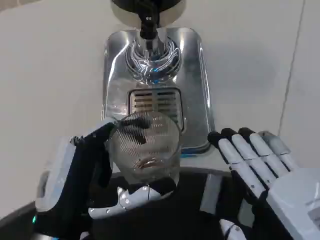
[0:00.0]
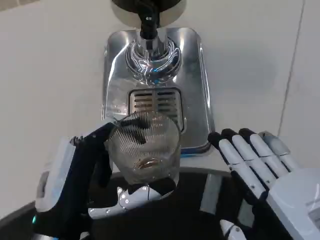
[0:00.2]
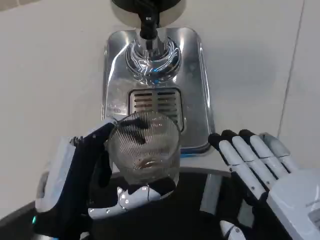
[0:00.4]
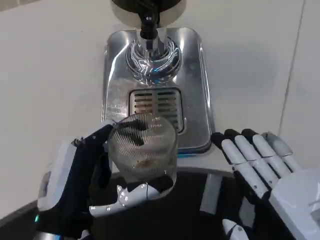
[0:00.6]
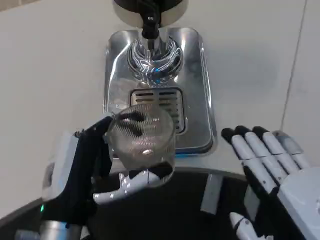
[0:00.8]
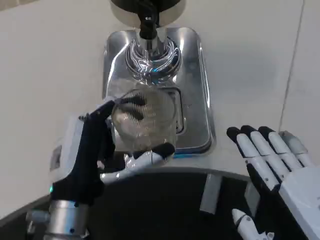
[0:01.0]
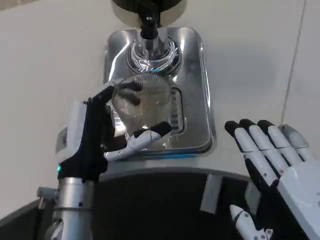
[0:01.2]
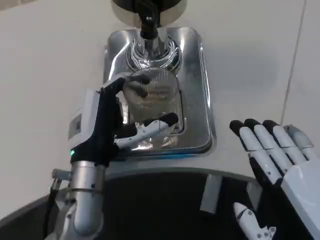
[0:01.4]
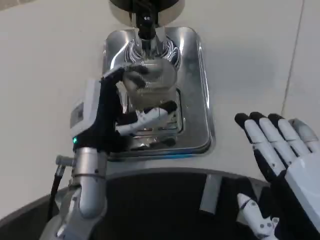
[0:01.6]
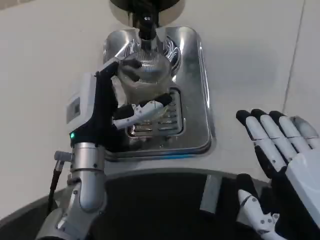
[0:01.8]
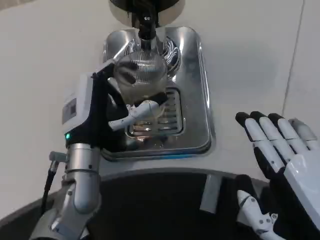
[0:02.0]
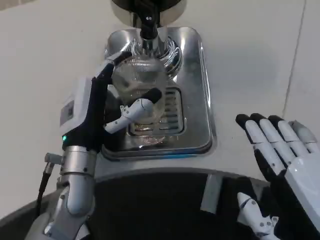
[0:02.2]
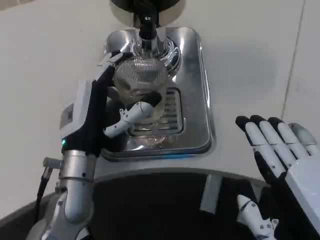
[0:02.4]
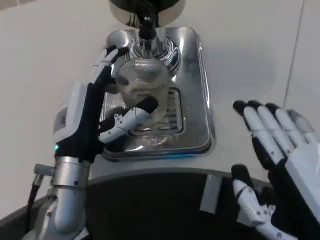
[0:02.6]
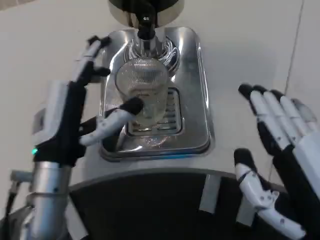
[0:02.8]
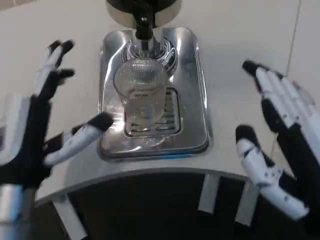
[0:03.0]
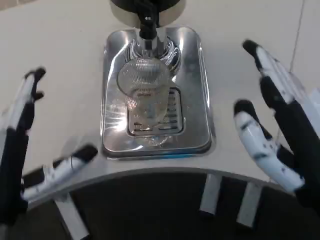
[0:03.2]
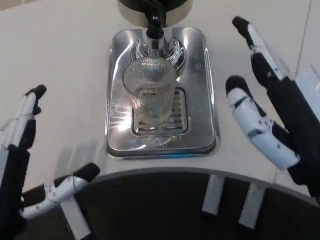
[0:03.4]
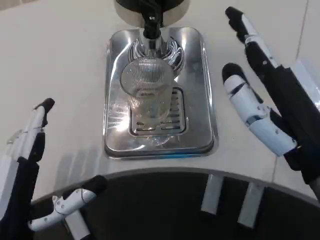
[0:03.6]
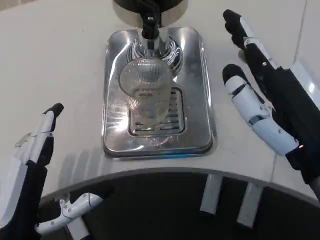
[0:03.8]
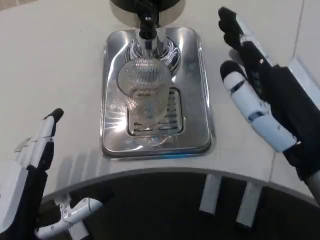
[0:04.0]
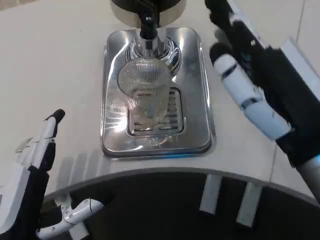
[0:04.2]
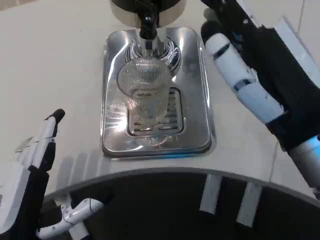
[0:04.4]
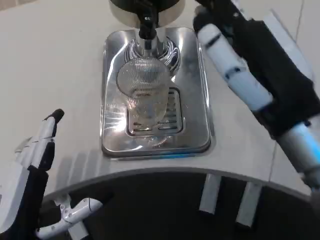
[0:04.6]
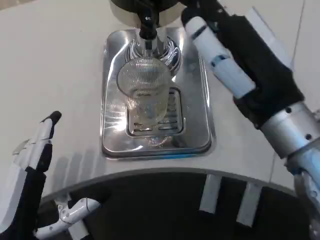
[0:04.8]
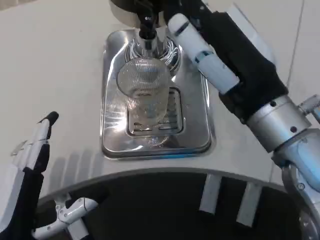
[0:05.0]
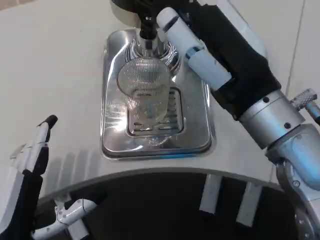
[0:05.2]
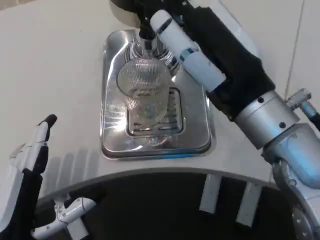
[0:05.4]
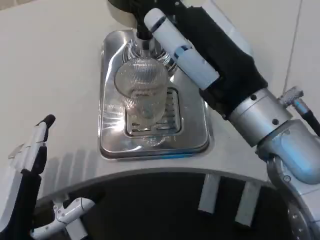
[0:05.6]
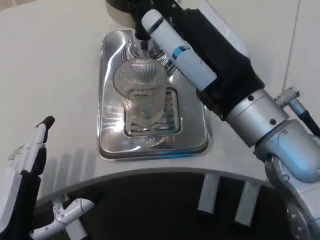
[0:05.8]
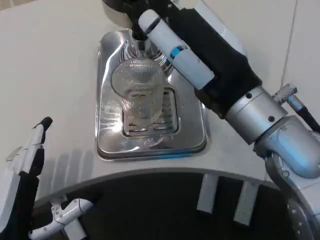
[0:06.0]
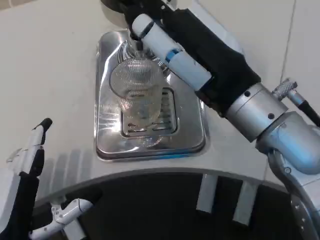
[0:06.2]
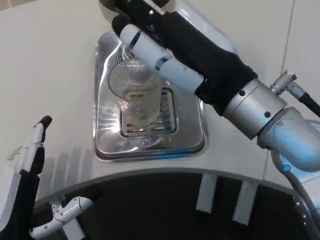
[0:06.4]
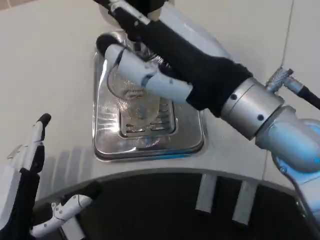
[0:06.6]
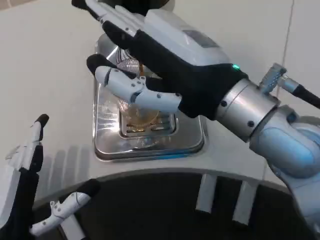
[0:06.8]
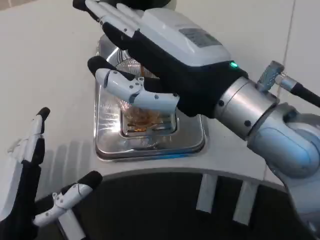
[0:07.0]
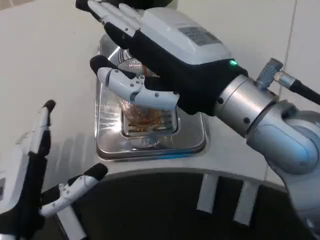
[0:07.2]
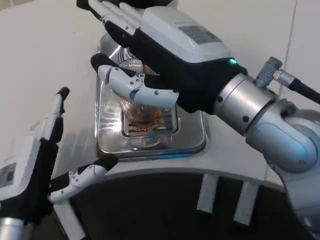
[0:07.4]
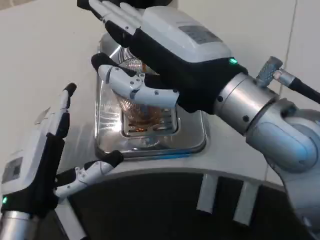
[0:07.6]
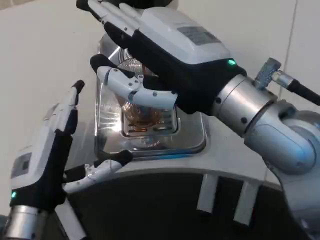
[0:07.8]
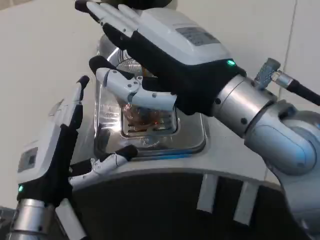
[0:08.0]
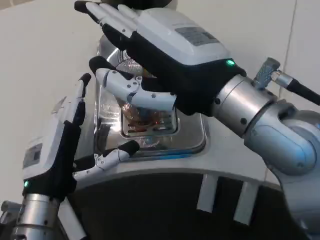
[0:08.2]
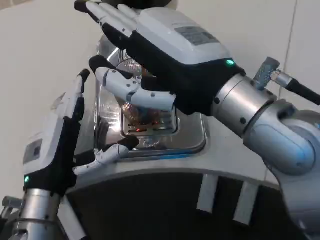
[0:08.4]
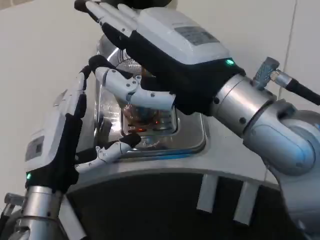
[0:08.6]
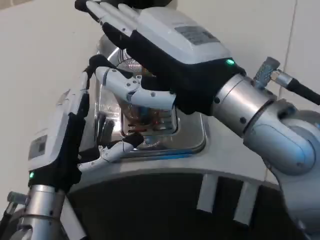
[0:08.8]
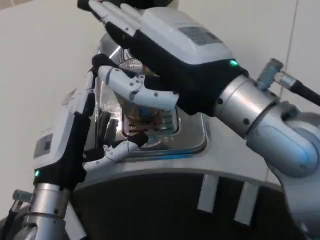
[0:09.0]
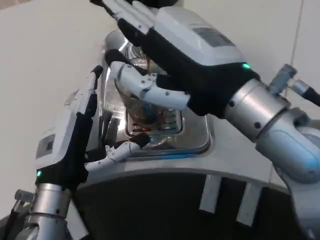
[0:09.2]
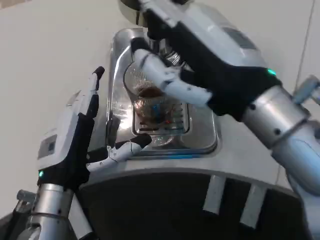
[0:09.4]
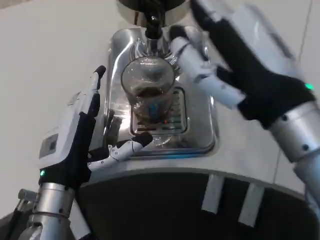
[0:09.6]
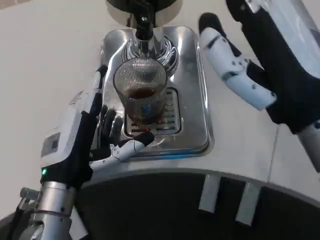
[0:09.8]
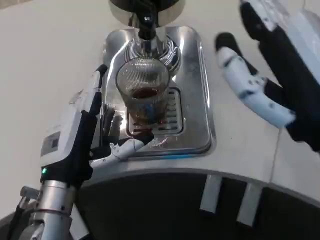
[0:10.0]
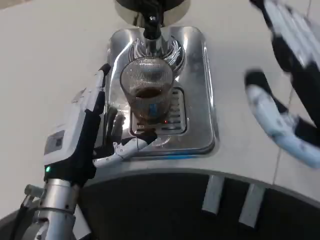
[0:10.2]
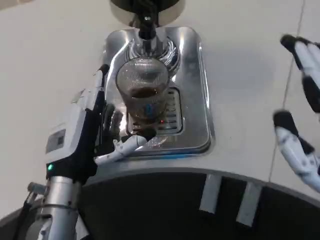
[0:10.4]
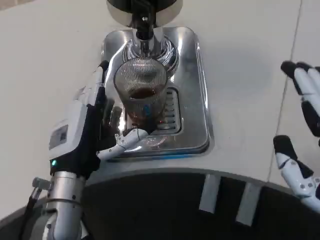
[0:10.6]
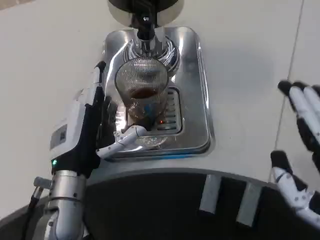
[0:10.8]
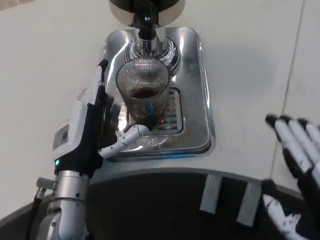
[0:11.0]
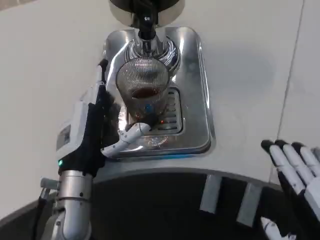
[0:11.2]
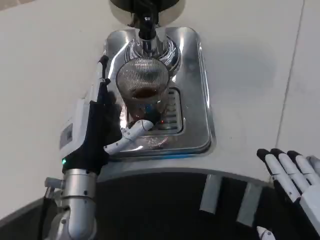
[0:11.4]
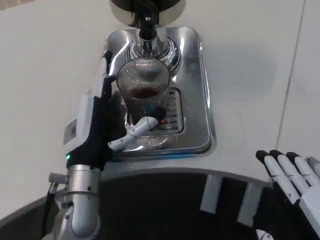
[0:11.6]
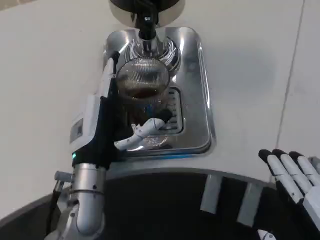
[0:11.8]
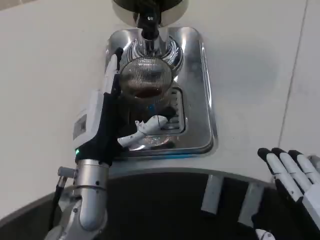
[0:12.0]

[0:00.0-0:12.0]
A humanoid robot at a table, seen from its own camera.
Task of the whole recording: Grasp the cup under the faucet to collect the drink, then remove the cup.
0:00.0 to 0:01.6: The left hand is displaced forward by about 15 cm.
0:01.6 to 0:03.0: The left hand moves backward and to the left, roughly 10 cm.
0:03.0 to 0:04.4: The right hand travels forward by about 5 cm; the left hand heads backward, covering about 5 cm.
0:04.4 to 0:06.0: The right hand shifts about 5 cm forward.
0:06.0 to 0:07.6: The left hand shifts roughly 5 cm forward.
0:07.6 to 0:09.0: The left hand ends up approximately 5 cm from where it was.
0:09.0 to 0:10.4: The right hand is displaced backward, to the right and downward by roughly 15 cm.
0:10.4 to 0:12.0: The right hand heads downward, covering about 5 cm.

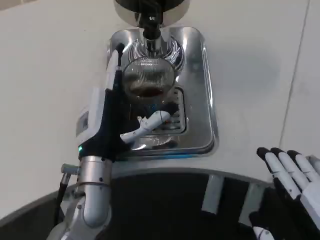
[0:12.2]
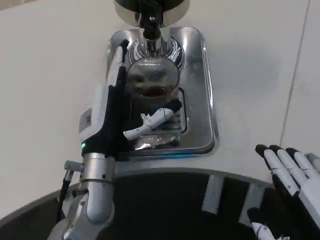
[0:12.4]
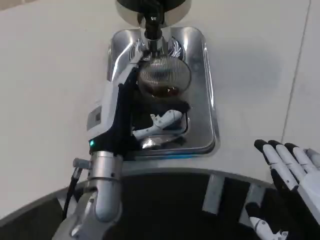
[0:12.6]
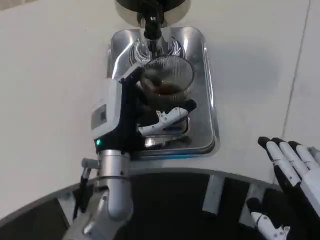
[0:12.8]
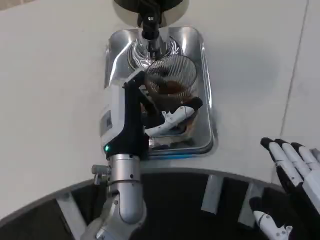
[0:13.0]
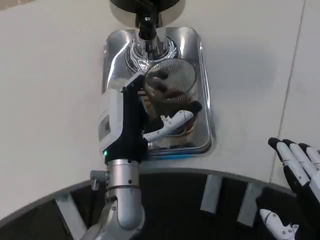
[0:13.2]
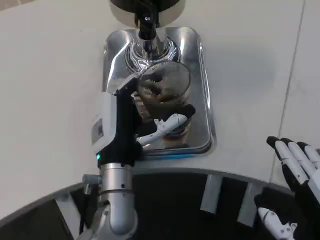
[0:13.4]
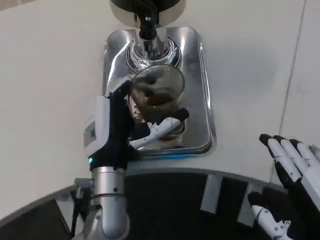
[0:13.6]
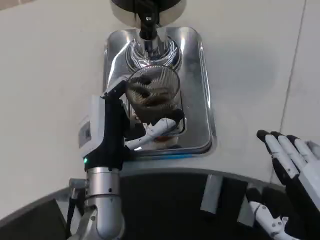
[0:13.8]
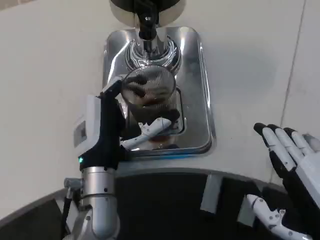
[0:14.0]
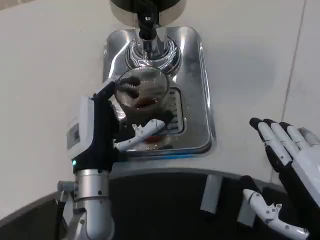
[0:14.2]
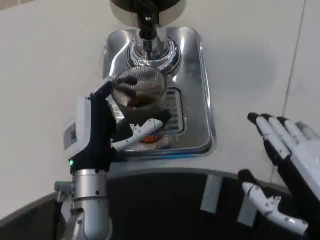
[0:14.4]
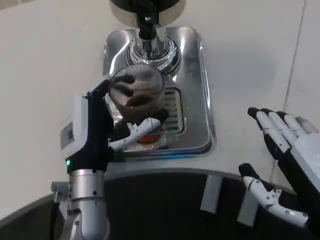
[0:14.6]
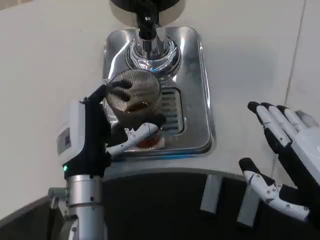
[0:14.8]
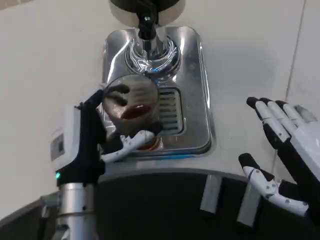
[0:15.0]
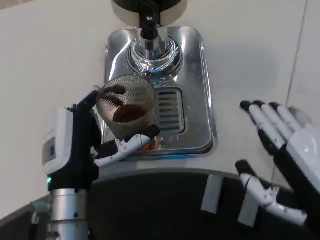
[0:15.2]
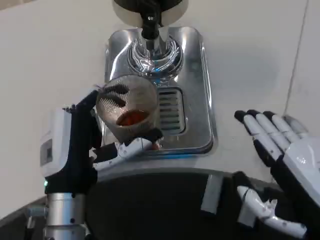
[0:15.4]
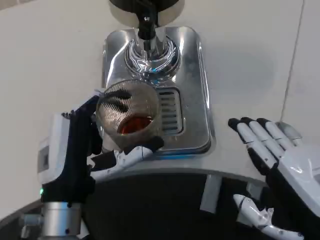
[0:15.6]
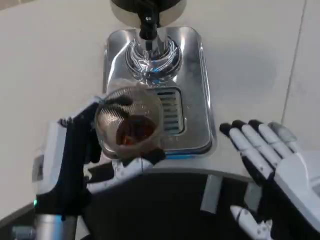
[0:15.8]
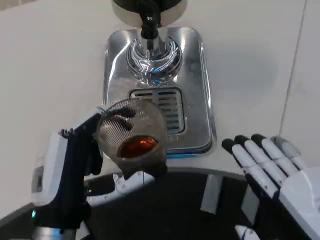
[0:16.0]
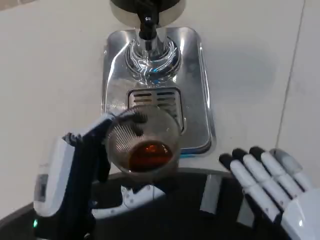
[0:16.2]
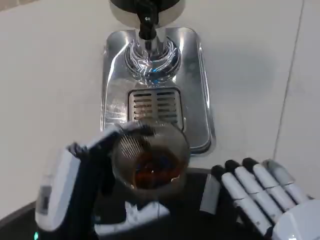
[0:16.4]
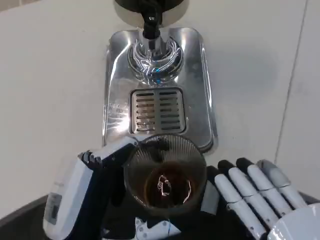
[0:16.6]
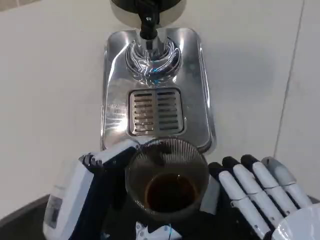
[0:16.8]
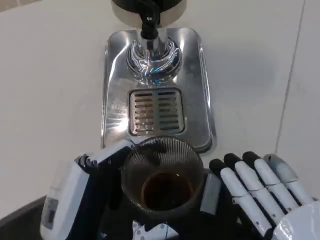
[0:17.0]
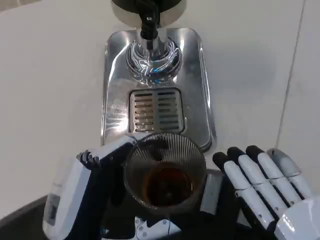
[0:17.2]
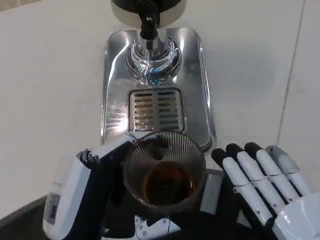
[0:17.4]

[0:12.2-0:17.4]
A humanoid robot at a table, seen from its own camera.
Task of the whole recording: Grasp the cup under the faucet to collect the drink, then remove the cup.
0:14.0 to 0:15.6: The left hand goes approximately 5 cm backward.
0:15.6 to 0:17.4: Both hands travel together backward, roughly 5 cm.

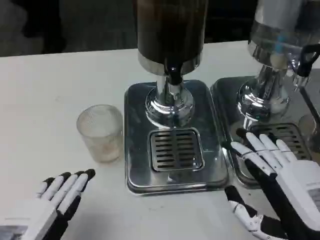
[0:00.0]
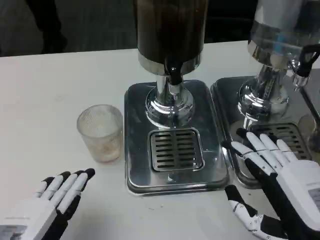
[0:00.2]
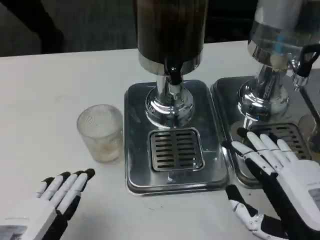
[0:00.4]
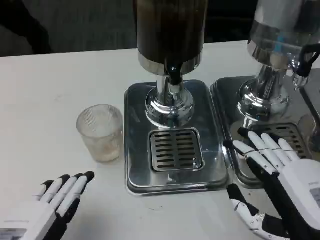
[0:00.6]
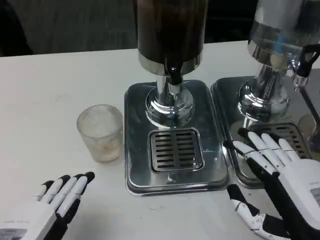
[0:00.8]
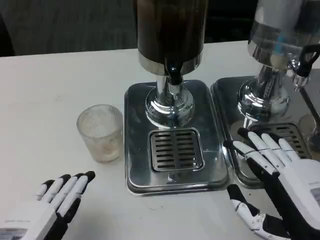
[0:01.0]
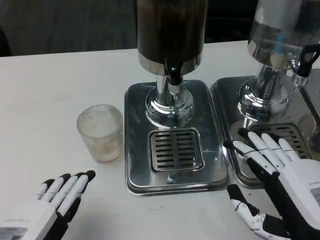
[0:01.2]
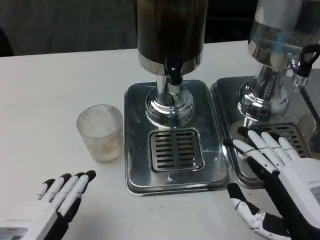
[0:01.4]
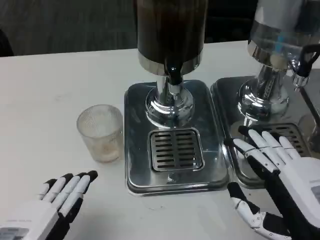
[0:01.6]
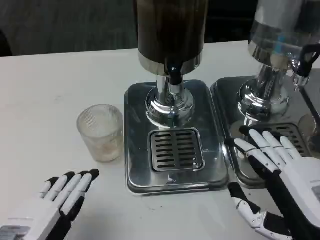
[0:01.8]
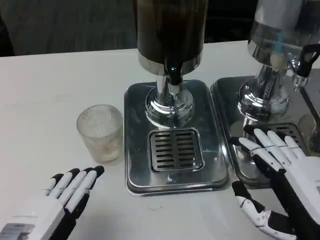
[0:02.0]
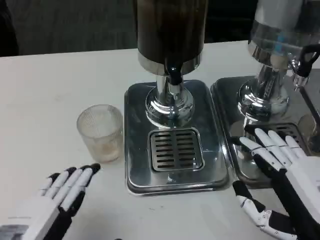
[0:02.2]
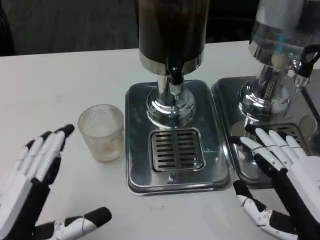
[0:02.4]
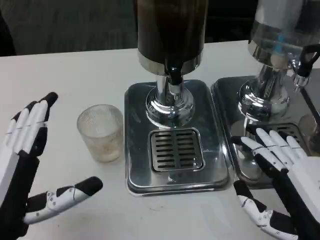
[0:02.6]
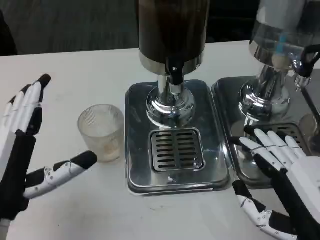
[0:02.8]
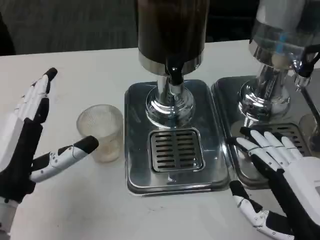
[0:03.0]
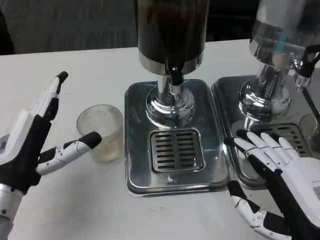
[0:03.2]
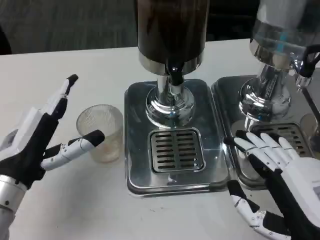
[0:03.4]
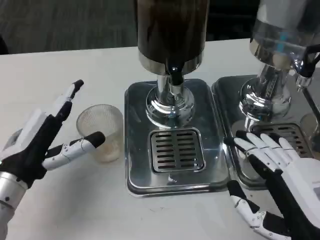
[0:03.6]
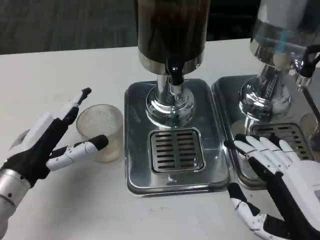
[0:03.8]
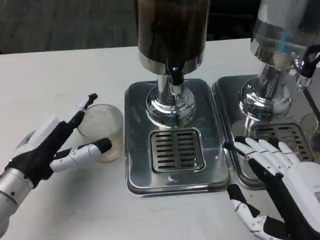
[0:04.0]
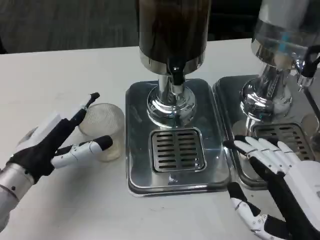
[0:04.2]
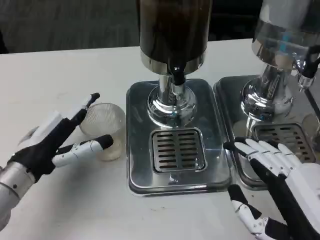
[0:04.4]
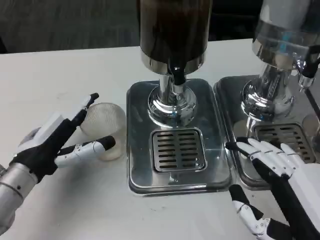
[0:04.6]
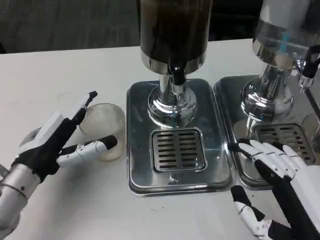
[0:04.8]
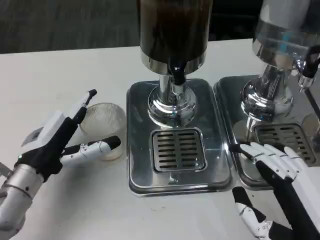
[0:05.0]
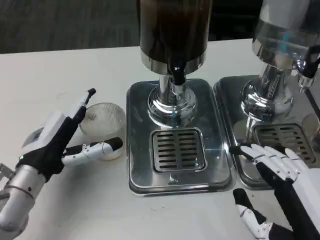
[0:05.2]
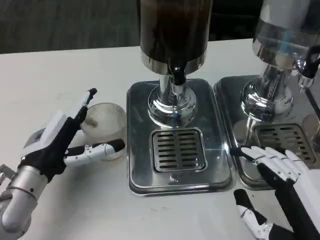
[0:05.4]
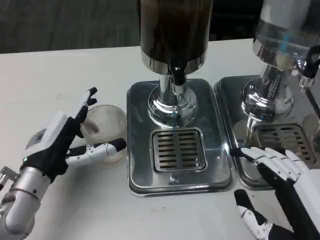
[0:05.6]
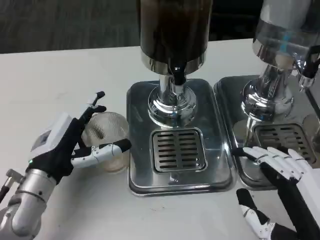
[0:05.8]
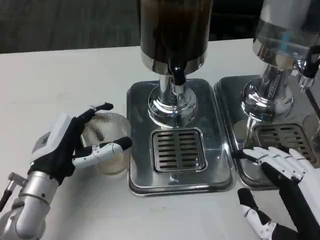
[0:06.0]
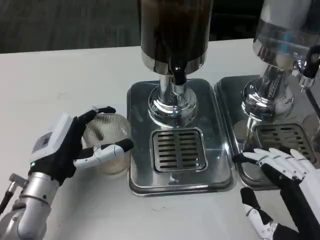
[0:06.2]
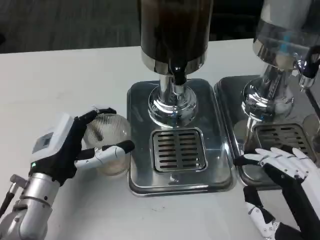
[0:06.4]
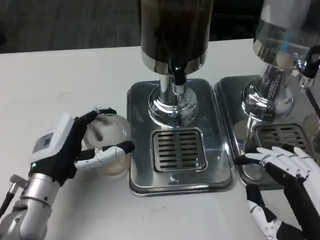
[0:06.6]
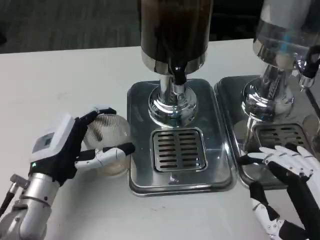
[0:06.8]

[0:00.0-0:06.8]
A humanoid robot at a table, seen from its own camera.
Task of the whole recording: Grasp the cup under the faucet to collect the drink, then remove the cup.
0:00.0 to 0:01.4: Both hands stay put.
0:01.4 to 0:02.8: The left hand heads forward, covering some 10 cm.
0:02.8 to 0:04.0: The left hand heads forward, covering roughly 10 cm.
0:04.0 to 0:06.8: The hands make only small movements.
